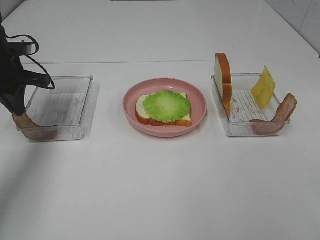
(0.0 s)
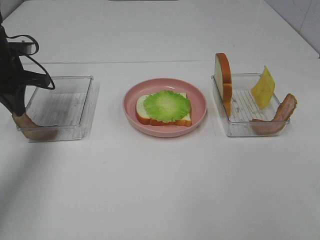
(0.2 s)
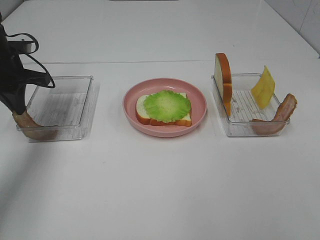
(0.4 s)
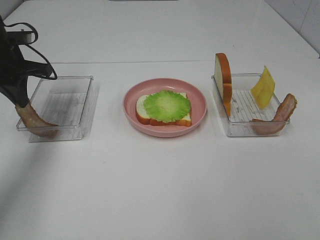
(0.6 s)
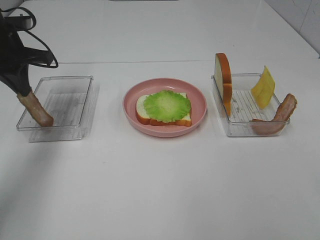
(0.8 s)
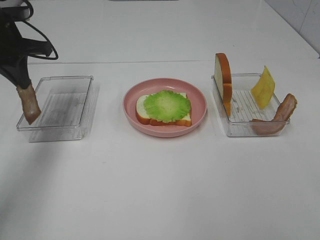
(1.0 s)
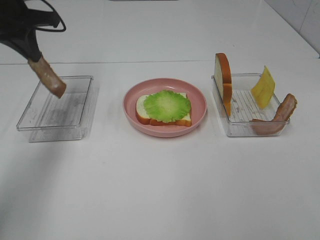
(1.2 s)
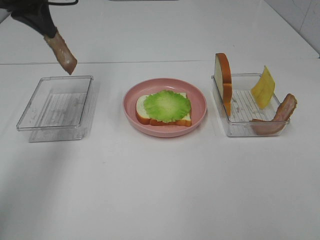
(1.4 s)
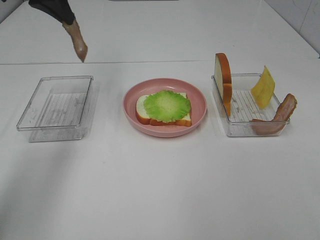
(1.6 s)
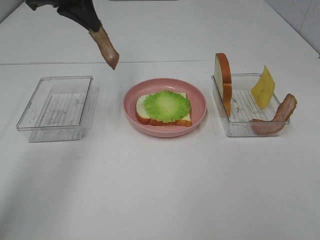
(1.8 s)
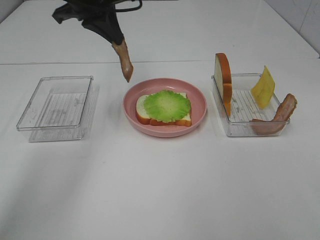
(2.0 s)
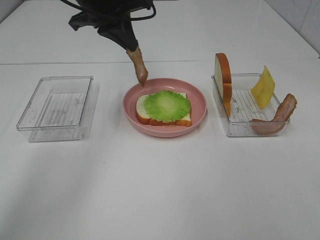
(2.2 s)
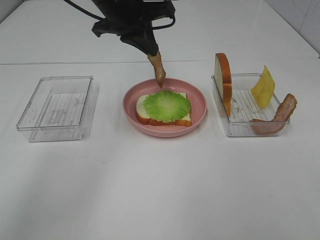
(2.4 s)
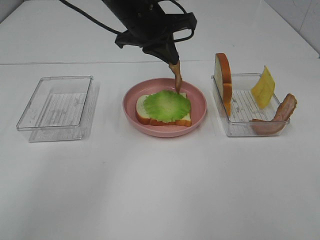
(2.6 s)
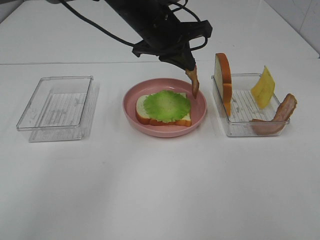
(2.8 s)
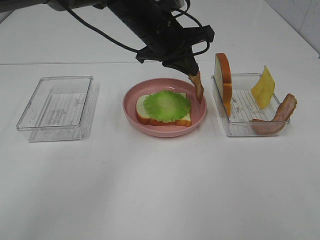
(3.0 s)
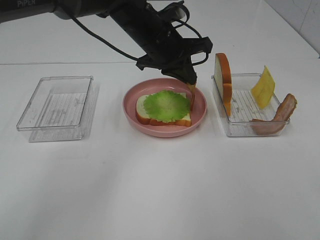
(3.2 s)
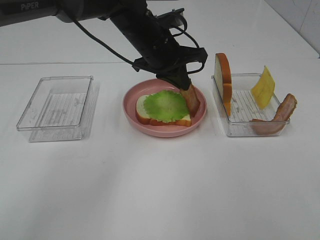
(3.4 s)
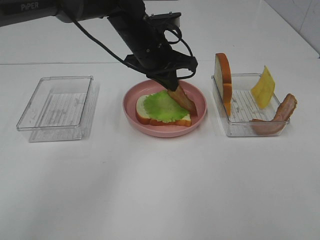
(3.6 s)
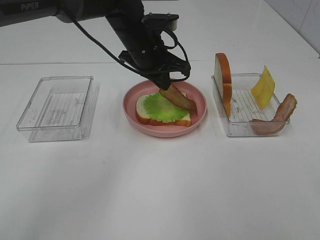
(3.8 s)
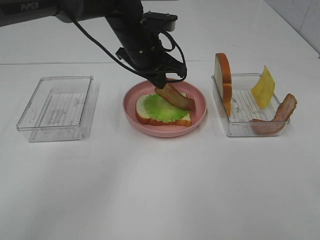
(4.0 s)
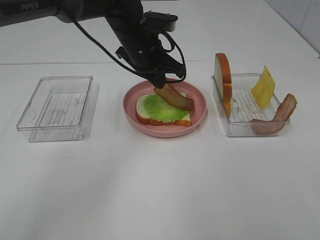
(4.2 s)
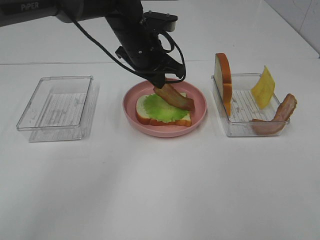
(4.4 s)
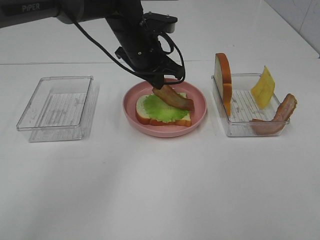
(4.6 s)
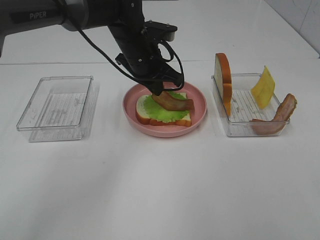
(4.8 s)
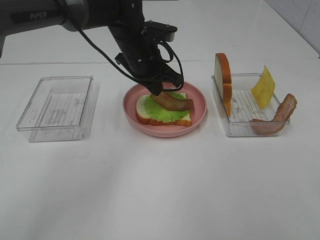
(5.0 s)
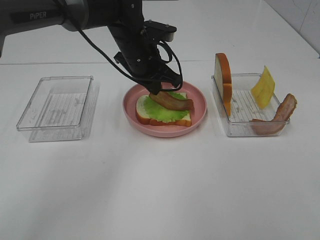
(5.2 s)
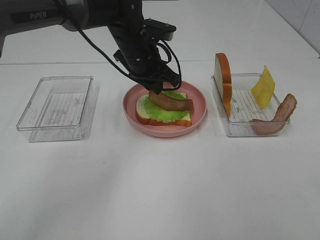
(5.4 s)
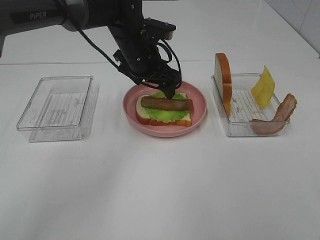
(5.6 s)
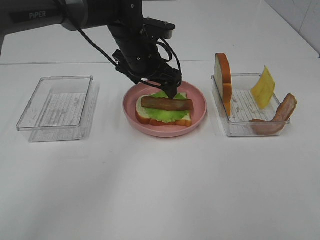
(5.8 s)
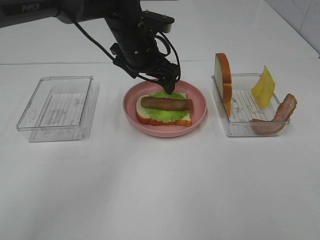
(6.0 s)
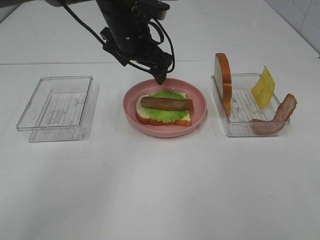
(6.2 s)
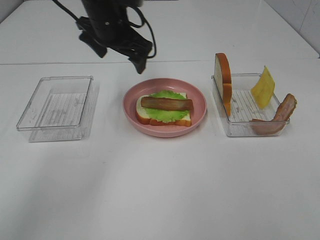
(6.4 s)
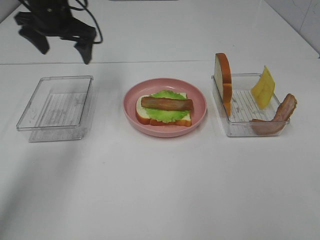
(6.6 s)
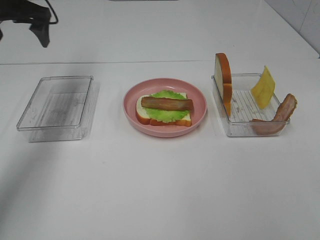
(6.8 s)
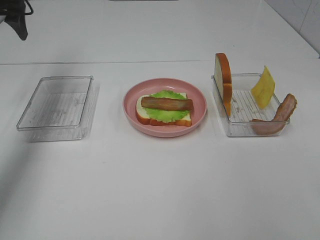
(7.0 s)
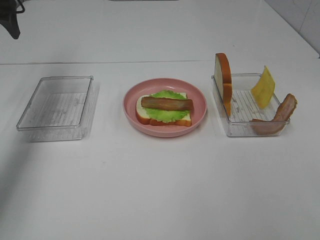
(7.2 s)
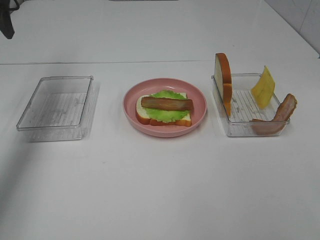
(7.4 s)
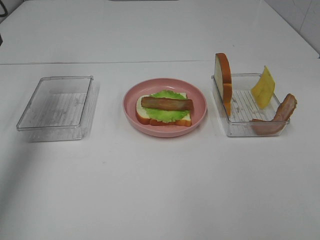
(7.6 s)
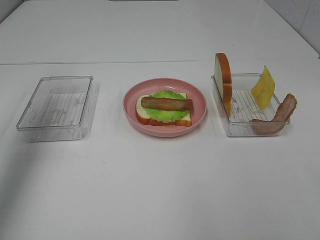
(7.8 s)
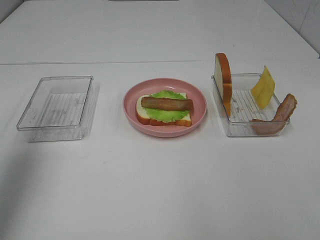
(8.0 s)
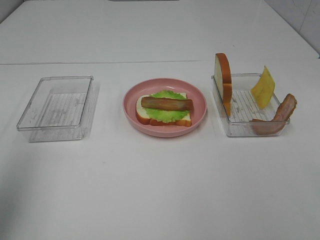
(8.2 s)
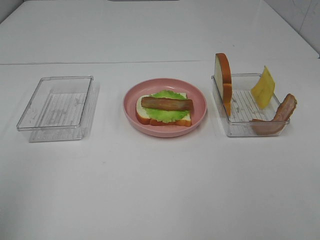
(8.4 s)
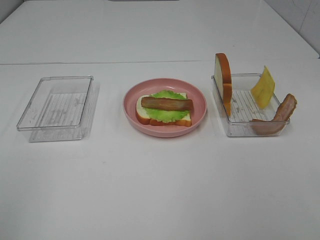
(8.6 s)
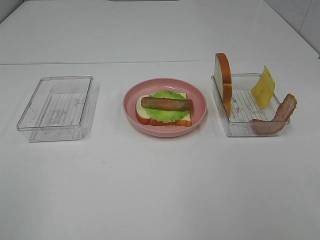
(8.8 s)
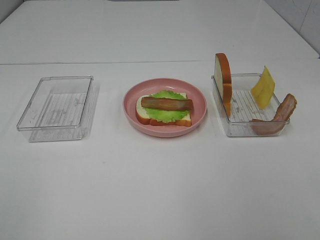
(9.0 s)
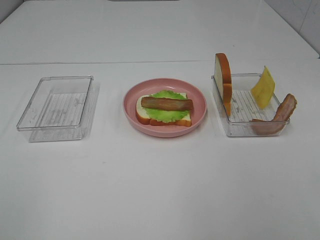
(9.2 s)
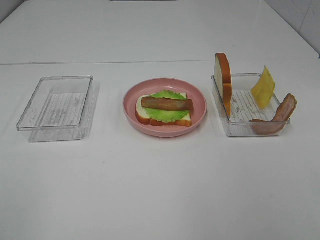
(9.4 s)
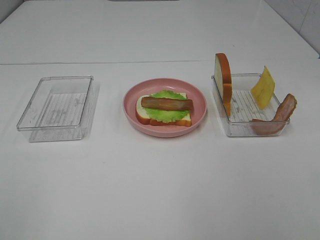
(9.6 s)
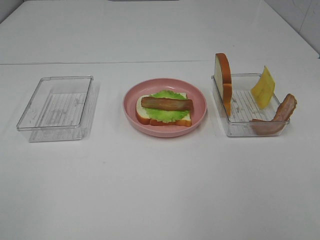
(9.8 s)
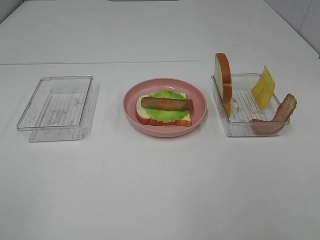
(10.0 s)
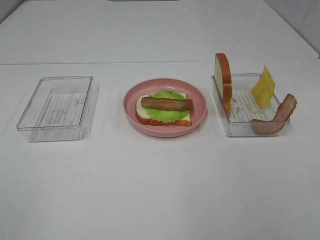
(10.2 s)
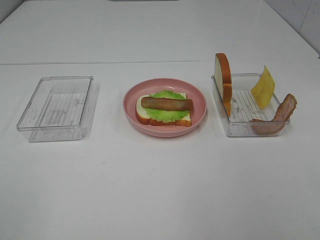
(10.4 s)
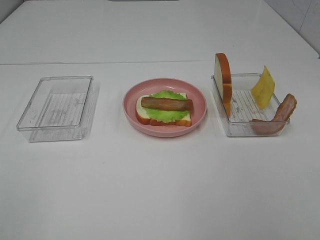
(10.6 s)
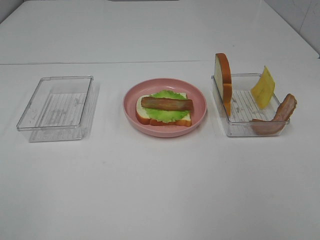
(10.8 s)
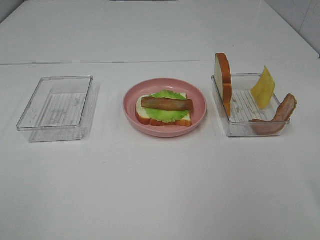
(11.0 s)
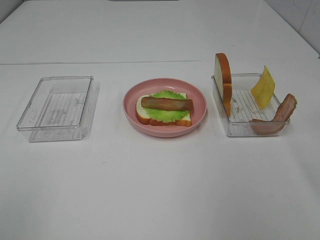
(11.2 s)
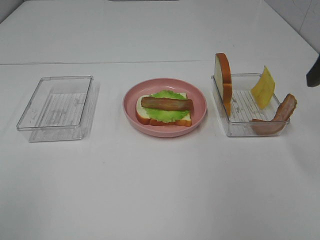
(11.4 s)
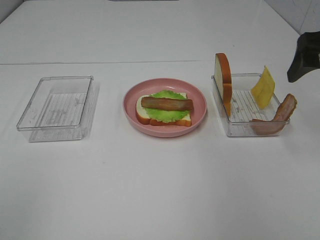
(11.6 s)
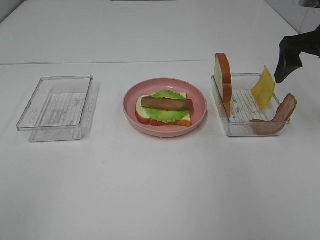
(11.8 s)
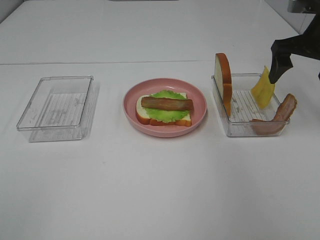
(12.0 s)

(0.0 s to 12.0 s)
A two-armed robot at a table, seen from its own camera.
Task of the whole recording: Make sandwiches.
Step, 1.0 s - 5.6 s: Left hand:place bacon on lettuce slice.
0.0 s - 1.6 s: The left gripper travels upward and to the right by approximately 20 cm.
1.6 s - 3.0 s: The left gripper heads to the right and downward, covering about 20 cm.
4.4 s - 6.0 s: The left gripper opens.
6.0 s - 7.6 s: The left gripper heads to the left and upward, covering approximately 30 cm.
7.6 s - 9.0 s: The left gripper heads backward, covering some 40 cm.
9.0 s - 10.4 s: The two grippers keep their place.
10.4 s - 12.0 s: The right gripper shifts approximately 35 cm forward.

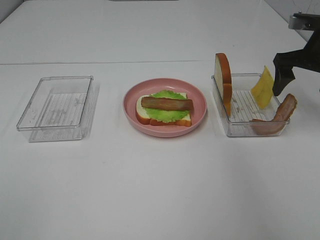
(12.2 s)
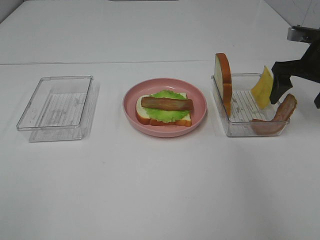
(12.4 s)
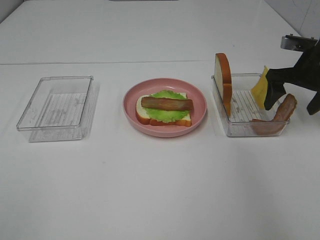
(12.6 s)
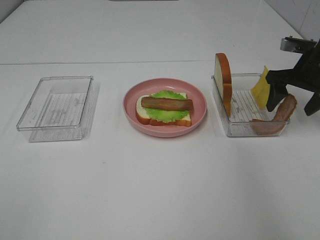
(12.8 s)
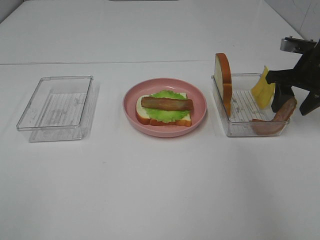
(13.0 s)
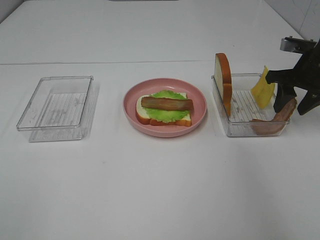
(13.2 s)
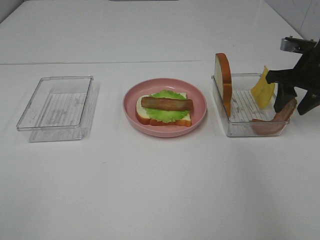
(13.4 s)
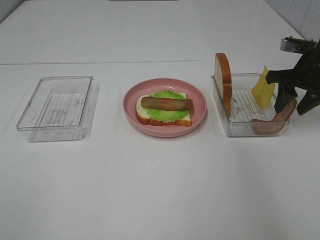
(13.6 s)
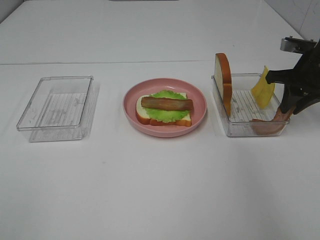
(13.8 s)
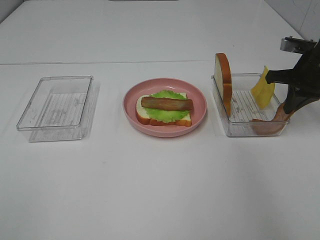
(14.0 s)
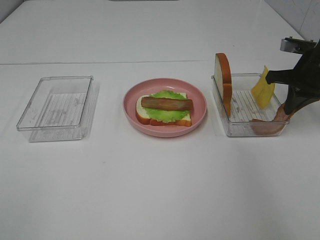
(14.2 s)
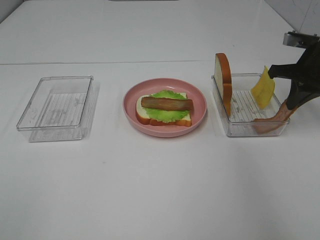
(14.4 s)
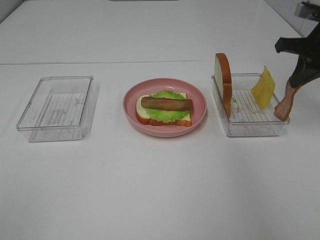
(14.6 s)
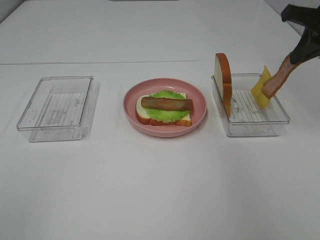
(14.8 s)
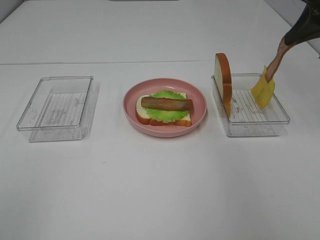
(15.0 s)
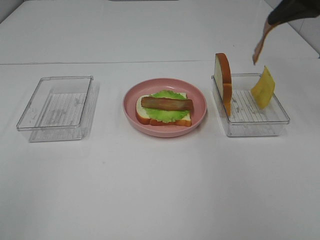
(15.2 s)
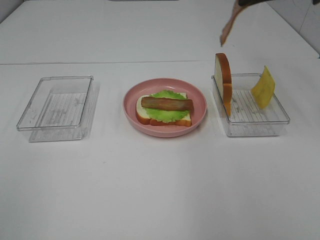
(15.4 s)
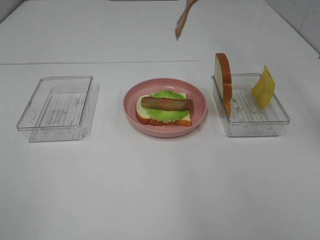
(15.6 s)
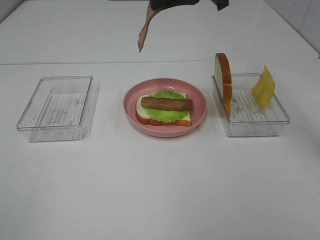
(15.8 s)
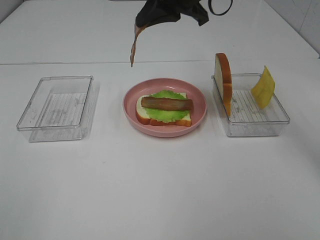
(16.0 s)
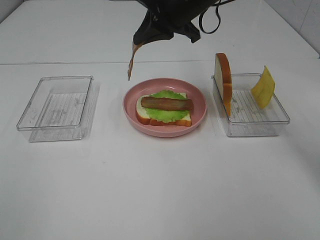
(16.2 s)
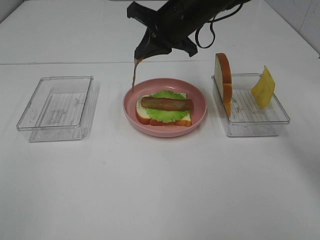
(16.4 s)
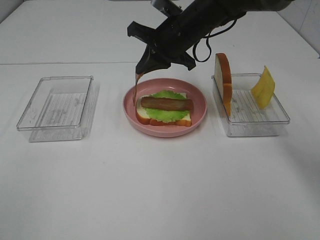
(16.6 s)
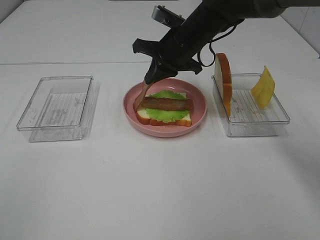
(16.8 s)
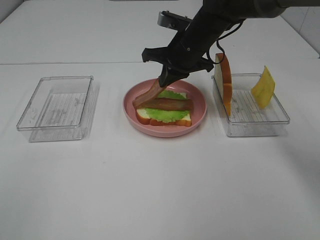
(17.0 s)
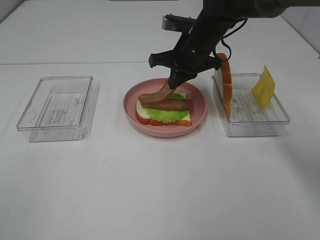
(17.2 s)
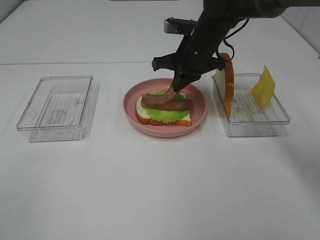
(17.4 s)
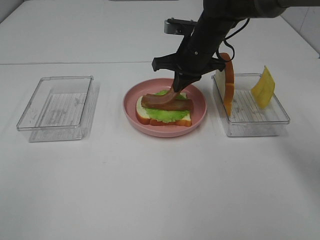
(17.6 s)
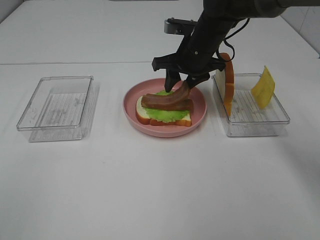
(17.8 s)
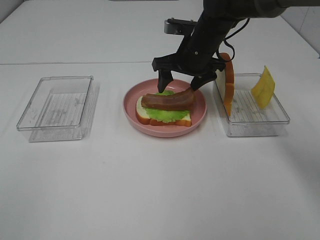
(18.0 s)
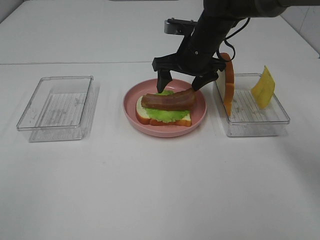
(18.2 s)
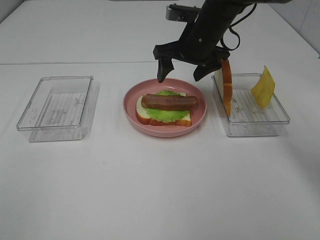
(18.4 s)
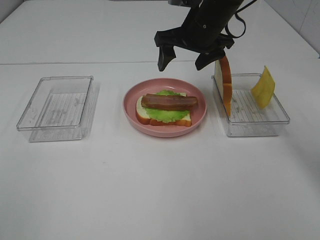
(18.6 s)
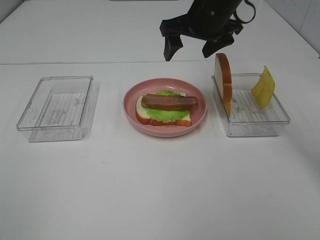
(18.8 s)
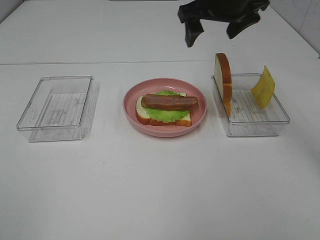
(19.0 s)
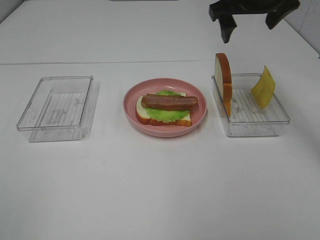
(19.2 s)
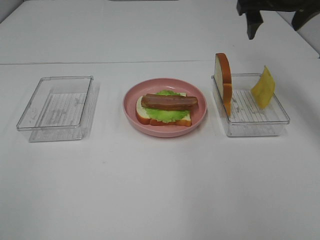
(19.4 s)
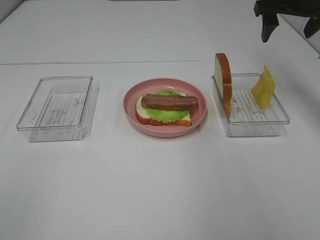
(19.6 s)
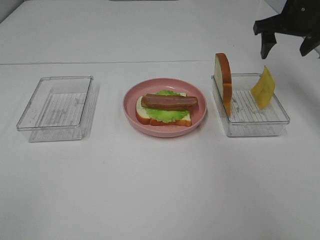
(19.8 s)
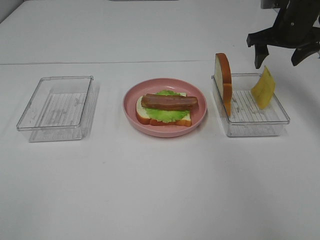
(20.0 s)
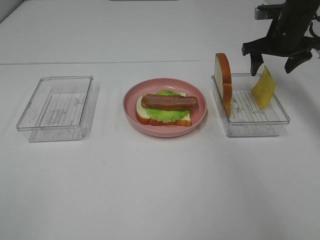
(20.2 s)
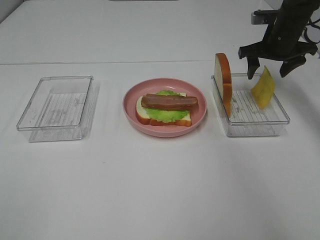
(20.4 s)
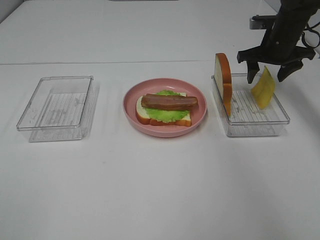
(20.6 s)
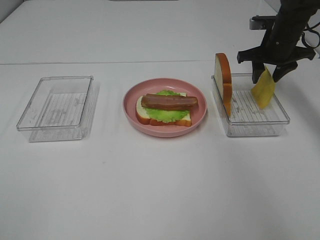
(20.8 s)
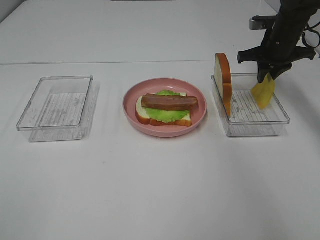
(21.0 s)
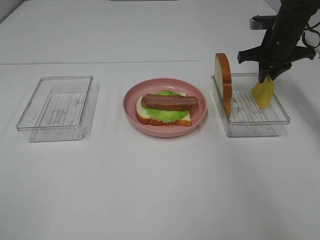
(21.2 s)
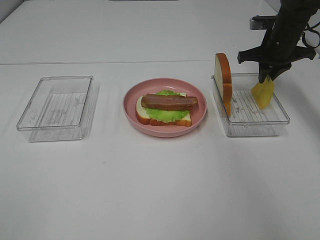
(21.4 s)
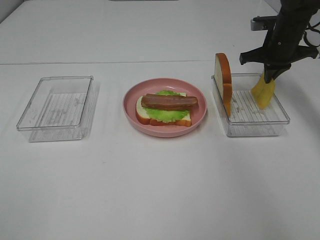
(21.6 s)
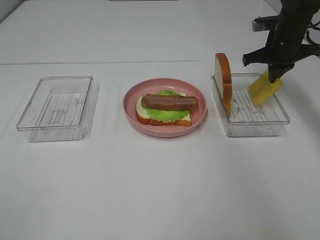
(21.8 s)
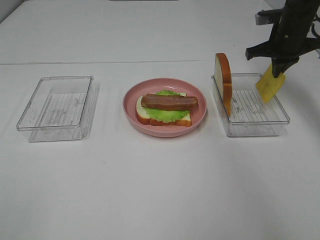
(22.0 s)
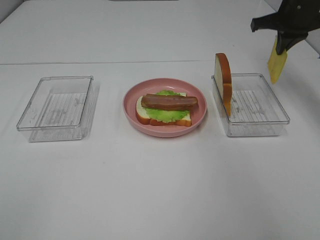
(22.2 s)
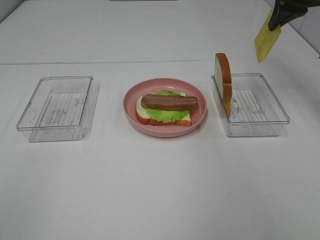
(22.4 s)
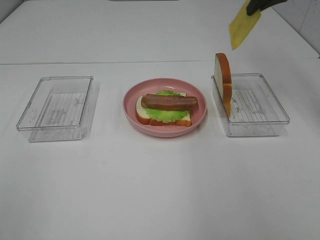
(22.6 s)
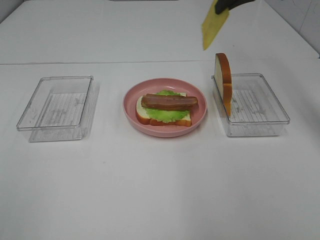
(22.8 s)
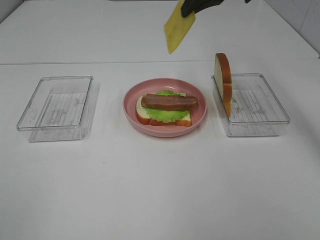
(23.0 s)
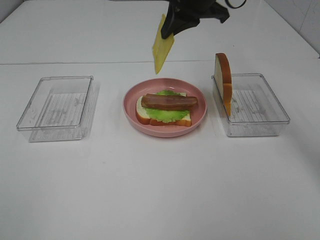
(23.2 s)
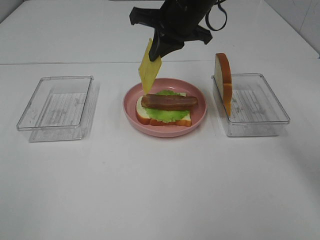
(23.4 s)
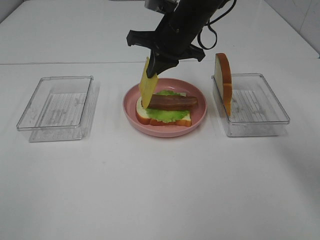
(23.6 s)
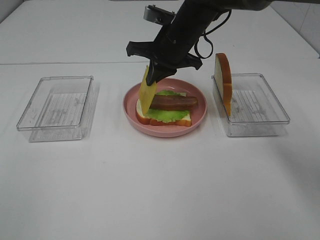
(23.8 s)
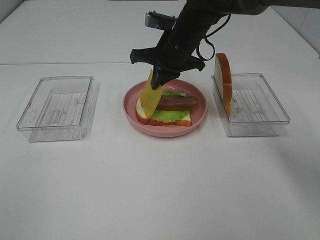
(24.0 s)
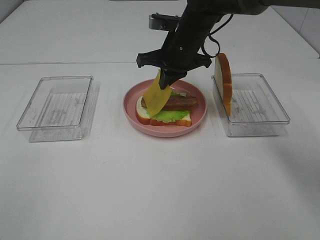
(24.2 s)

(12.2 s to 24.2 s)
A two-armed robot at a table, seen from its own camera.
Task of the whole recording: Make sandwiches.
Step, 12.2 s - 14.4 s: Right hand:grab the bacon.
Step, 14.6 s - 18.2 s: Right hand:place bacon on bacon.
Step, 18.4 s - 21.8 s: Right hand:grab the cheese slice.
12.2 s - 13.8 s: The right gripper closes up.
13.8 s - 15.2 s: The right gripper moves upward, about 15 cm.
15.2 s - 16.6 s: The right gripper is displaced to the left and downward by some 25 cm.
16.6 s - 18.2 s: The right gripper opens up.
18.2 s - 19.8 s: The right gripper moves to the right, roughly 20 cm.
19.8 s - 21.2 s: The right gripper goes roughly 5 cm downward, and closes.
21.2 s - 22.6 s: The right gripper is displaced upward by some 15 cm.
22.6 s - 24.2 s: The right gripper heads to the left and downward, covering approximately 20 cm.
